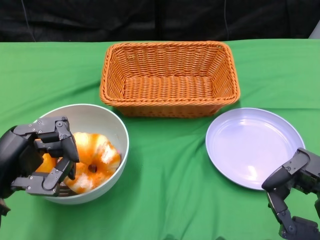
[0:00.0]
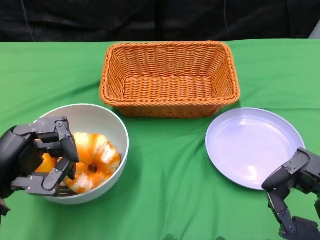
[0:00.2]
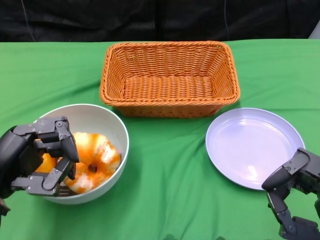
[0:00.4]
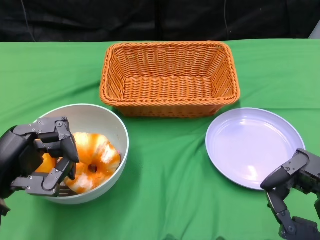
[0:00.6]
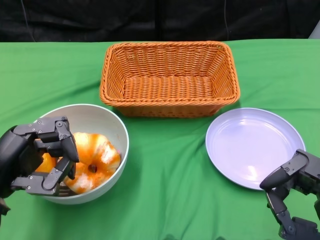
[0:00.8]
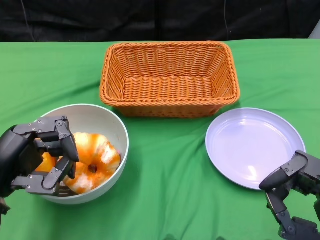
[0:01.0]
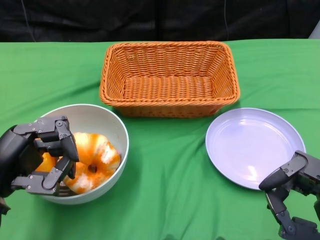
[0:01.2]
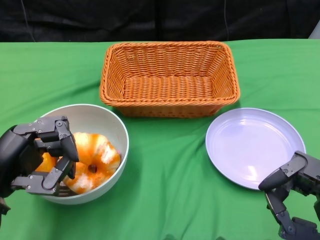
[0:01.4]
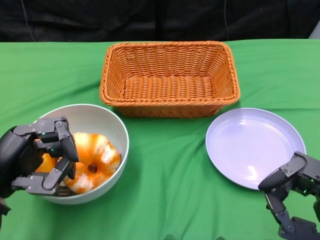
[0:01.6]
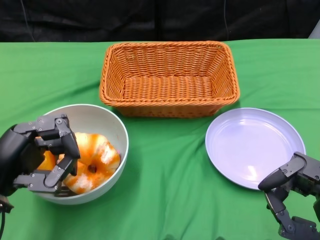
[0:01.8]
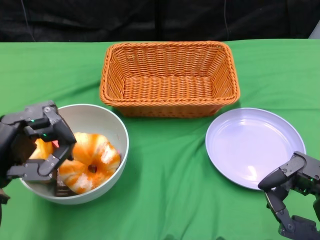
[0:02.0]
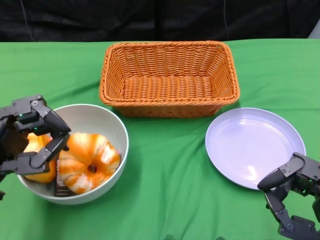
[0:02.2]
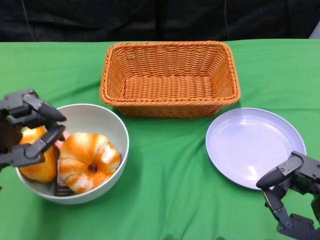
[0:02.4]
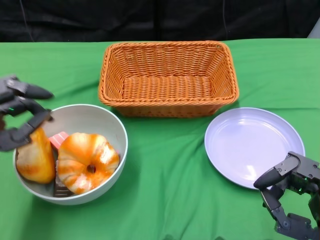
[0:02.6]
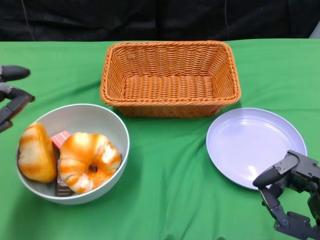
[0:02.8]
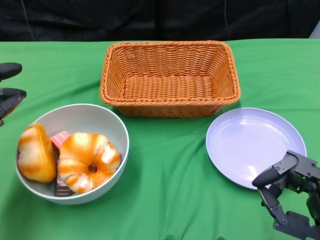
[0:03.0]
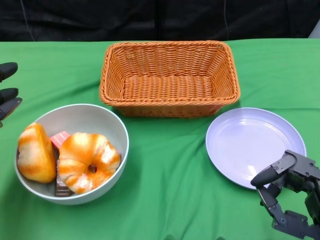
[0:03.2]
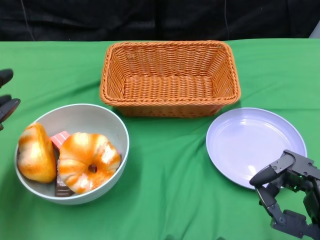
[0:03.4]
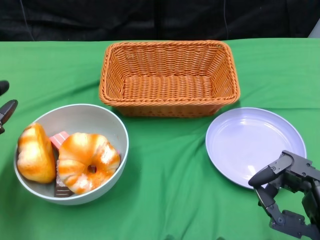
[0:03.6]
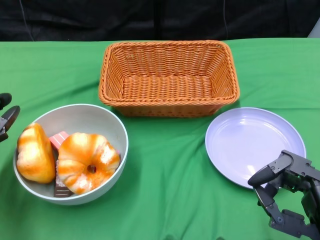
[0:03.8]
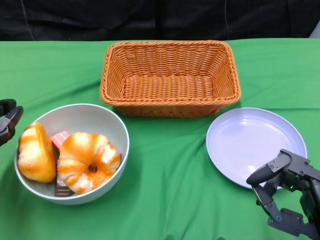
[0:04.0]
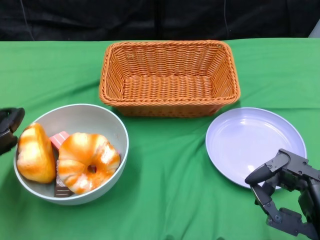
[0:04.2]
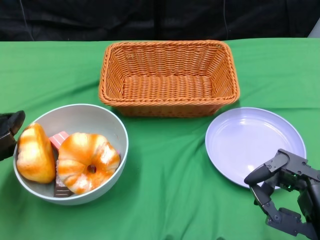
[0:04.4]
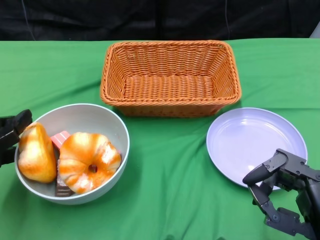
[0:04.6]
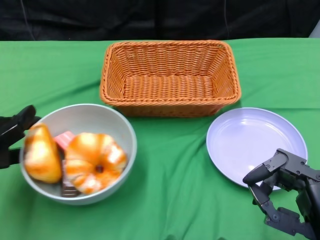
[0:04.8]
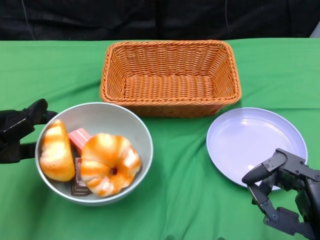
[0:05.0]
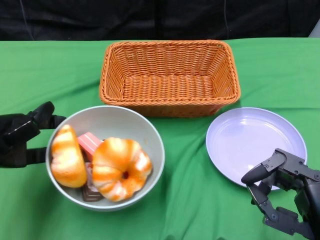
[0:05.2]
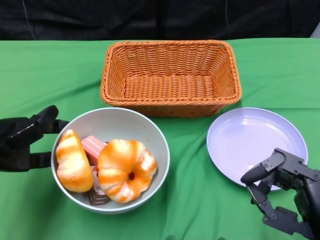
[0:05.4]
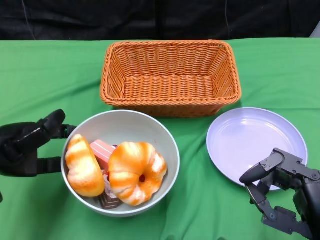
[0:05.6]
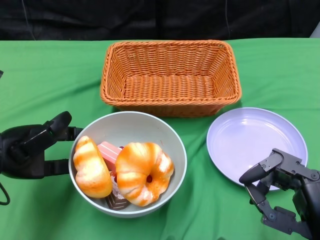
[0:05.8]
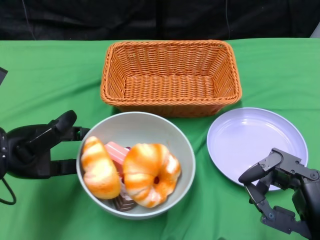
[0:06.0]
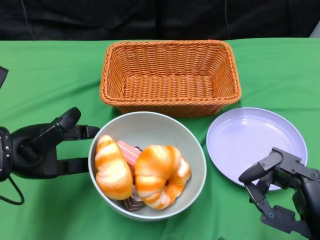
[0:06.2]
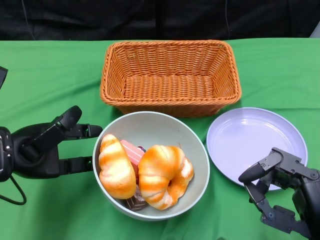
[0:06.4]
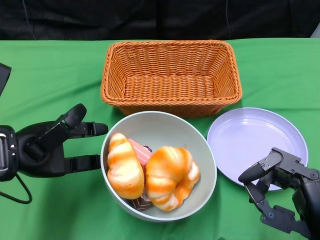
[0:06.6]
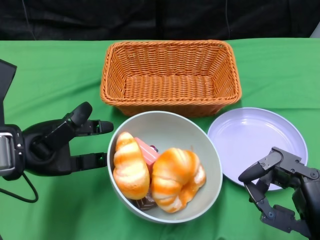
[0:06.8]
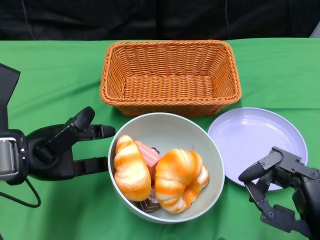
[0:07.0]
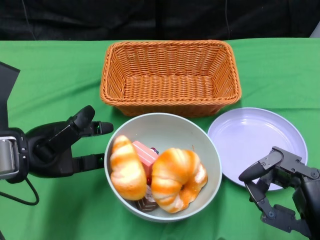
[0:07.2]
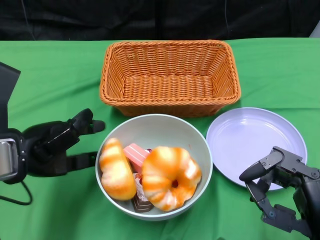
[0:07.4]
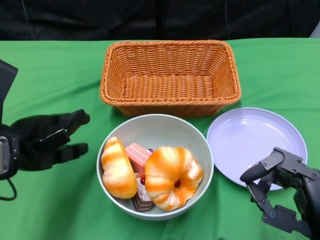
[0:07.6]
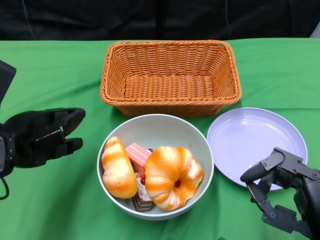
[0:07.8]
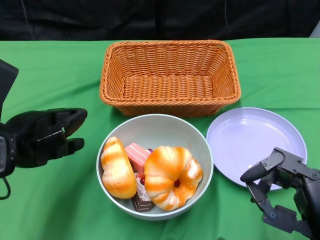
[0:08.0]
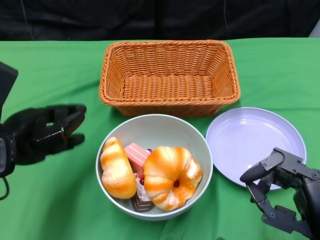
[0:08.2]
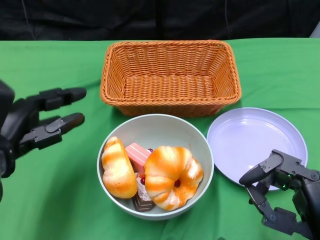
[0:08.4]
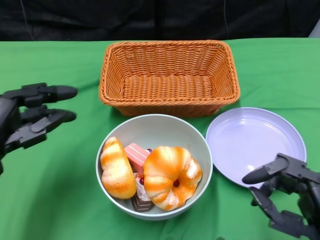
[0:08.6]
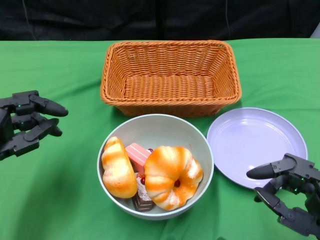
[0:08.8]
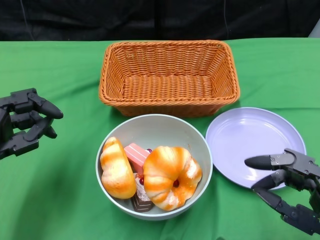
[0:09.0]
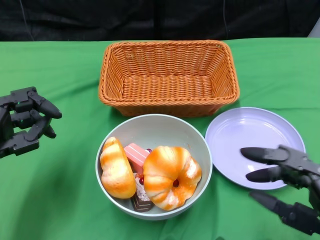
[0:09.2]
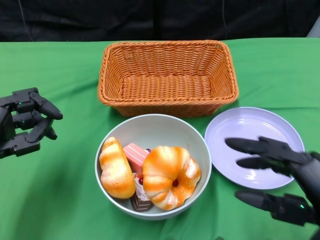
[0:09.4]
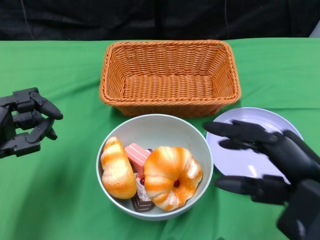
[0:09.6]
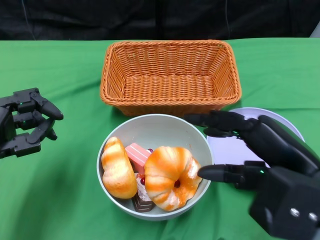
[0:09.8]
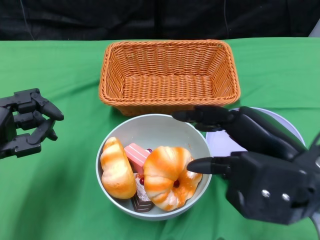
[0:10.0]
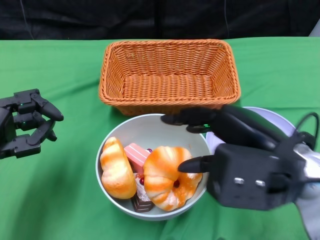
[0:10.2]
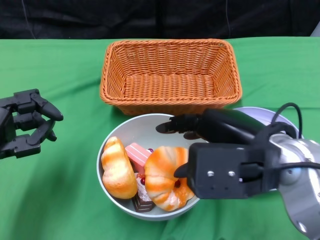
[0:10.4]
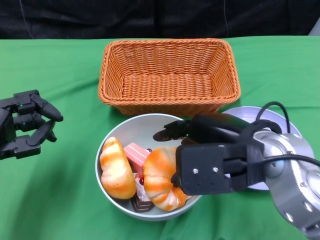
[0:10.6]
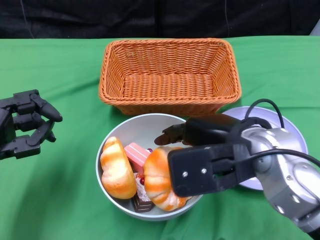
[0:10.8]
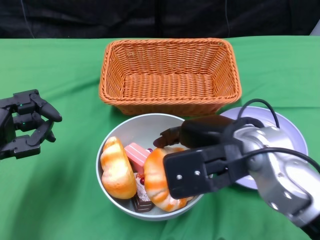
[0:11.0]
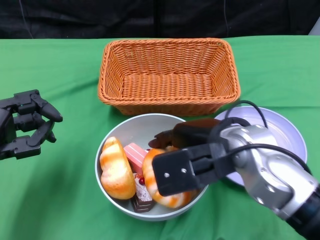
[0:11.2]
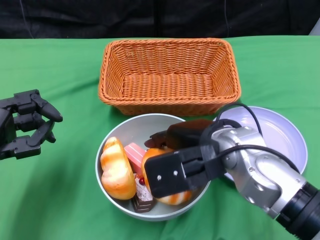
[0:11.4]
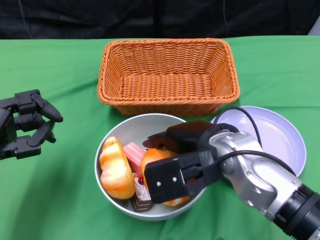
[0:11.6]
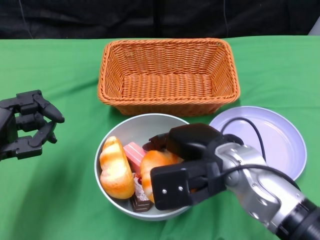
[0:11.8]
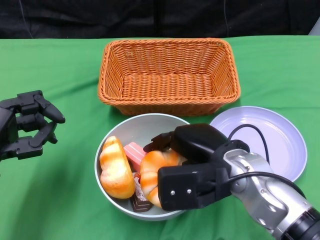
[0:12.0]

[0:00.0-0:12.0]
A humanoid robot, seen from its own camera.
Step, 0:00.0 to 0:07.8: Push the bowl to the center of the table using the left gripper.
0:01.6 to 0:03.0: The left hand ends up roughly 5 cm from where it was.
0:04.4 to 0:06.0: The left hand shifts about 5 cm to the right.
0:07.6 to 0:09.0: The left hand shifts about 5 cm downward.
0:09.0 to 0:10.4: The right hand is displaced to the left, upward and forward by roughly 15 cm.
0:10.4 to 0:12.0: The right hand travels downward by about 10 cm.

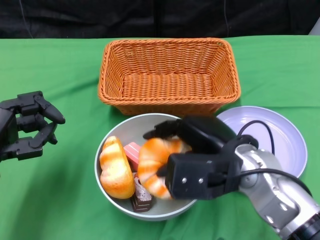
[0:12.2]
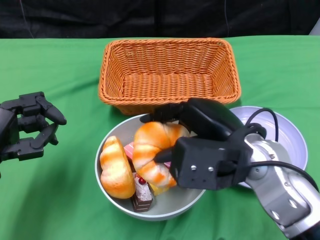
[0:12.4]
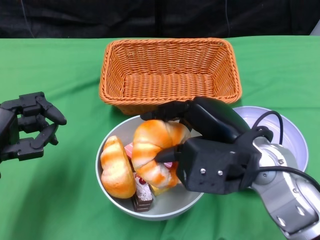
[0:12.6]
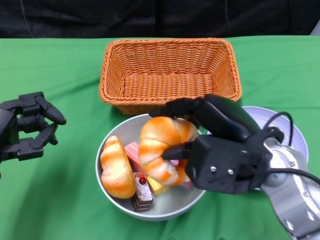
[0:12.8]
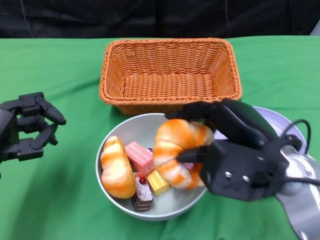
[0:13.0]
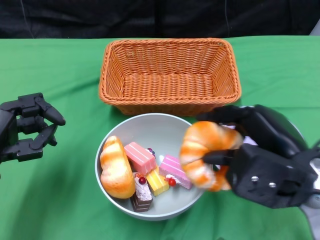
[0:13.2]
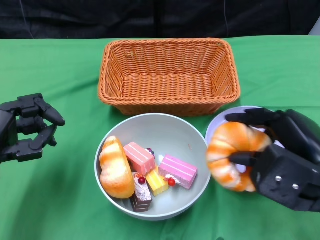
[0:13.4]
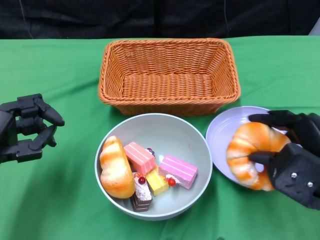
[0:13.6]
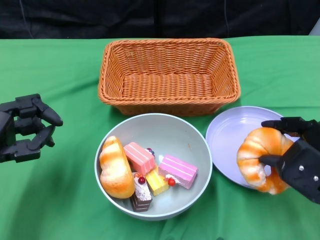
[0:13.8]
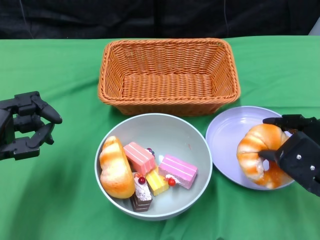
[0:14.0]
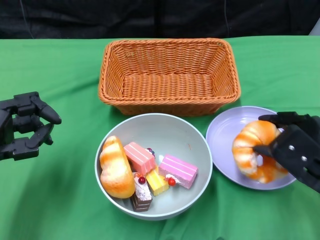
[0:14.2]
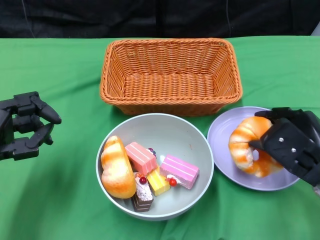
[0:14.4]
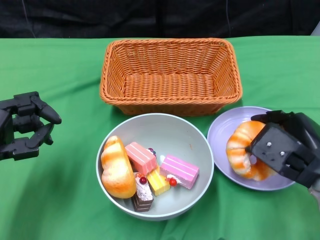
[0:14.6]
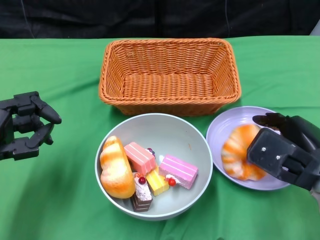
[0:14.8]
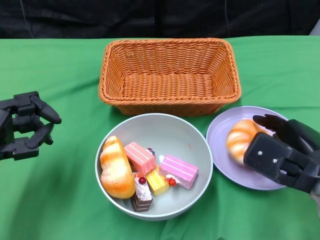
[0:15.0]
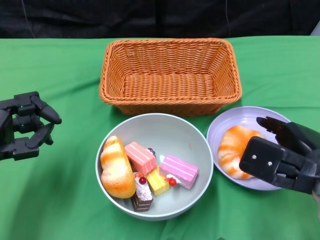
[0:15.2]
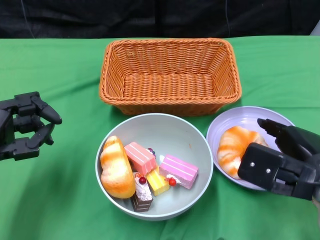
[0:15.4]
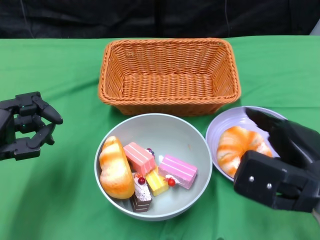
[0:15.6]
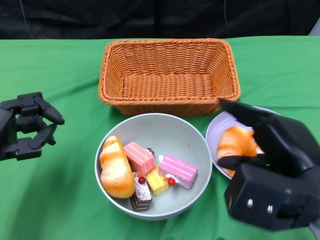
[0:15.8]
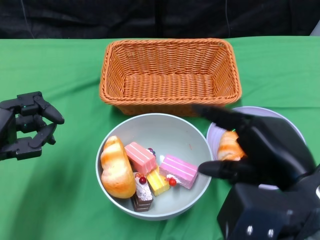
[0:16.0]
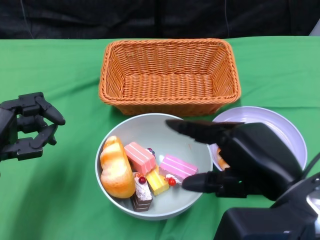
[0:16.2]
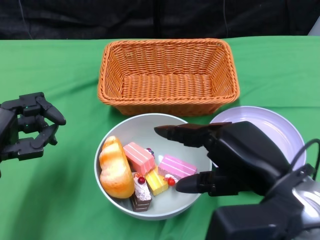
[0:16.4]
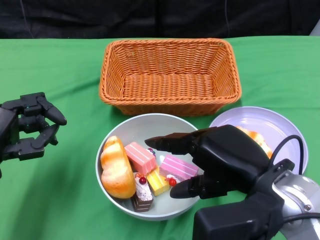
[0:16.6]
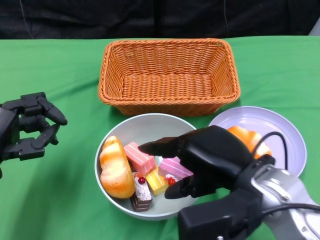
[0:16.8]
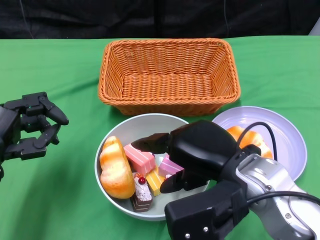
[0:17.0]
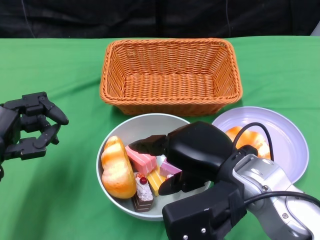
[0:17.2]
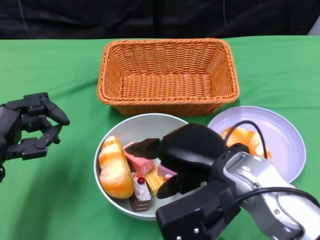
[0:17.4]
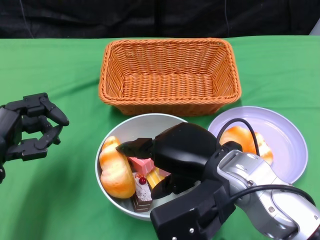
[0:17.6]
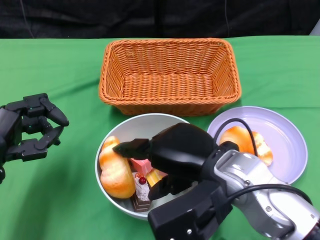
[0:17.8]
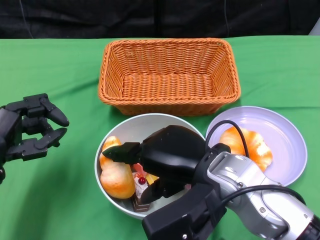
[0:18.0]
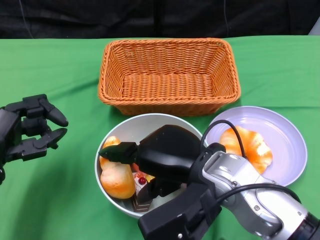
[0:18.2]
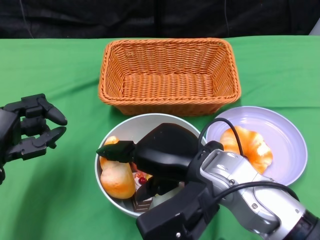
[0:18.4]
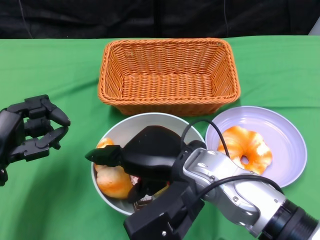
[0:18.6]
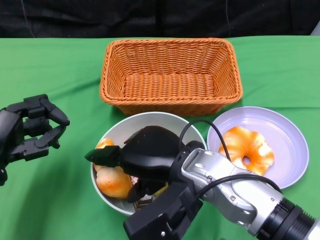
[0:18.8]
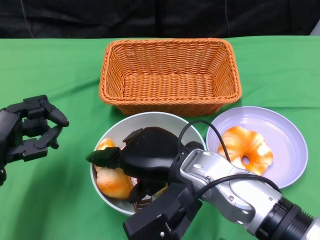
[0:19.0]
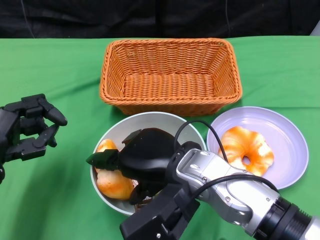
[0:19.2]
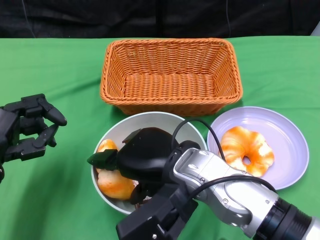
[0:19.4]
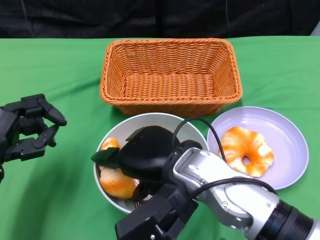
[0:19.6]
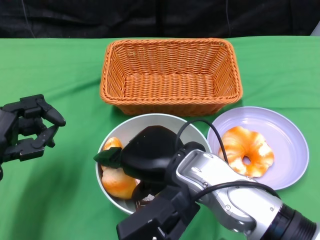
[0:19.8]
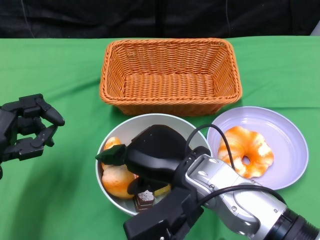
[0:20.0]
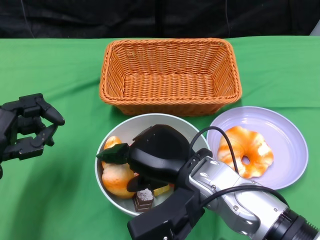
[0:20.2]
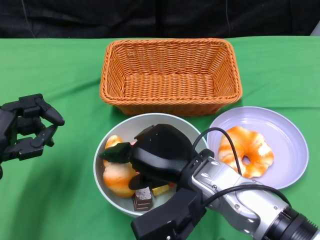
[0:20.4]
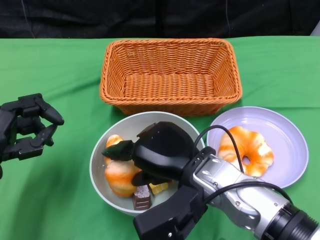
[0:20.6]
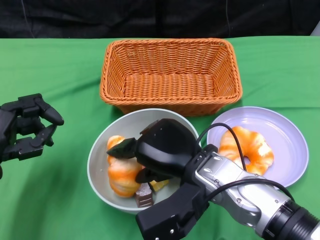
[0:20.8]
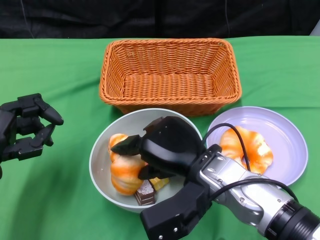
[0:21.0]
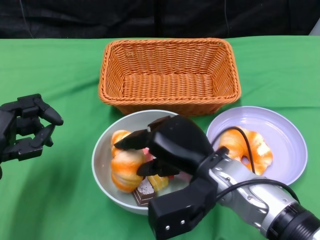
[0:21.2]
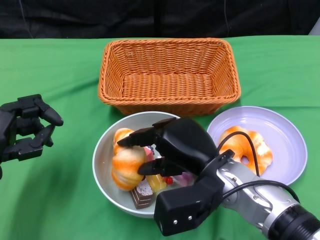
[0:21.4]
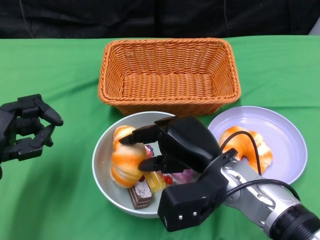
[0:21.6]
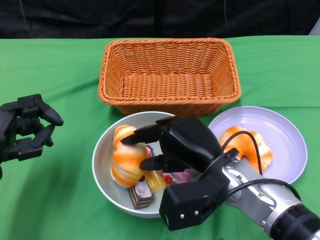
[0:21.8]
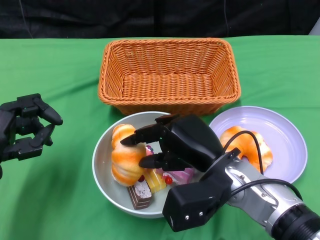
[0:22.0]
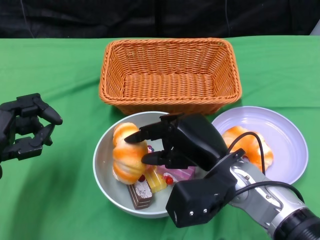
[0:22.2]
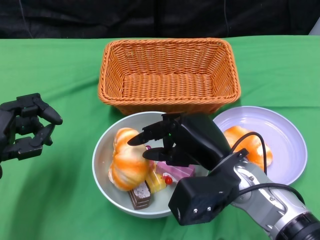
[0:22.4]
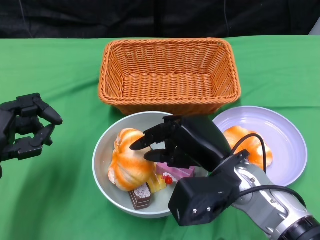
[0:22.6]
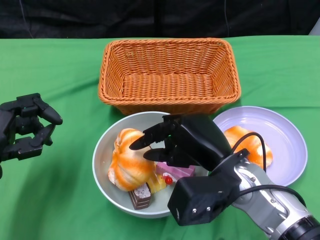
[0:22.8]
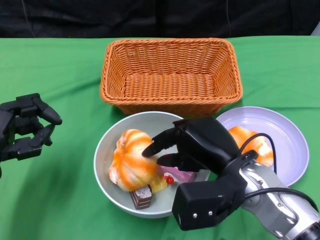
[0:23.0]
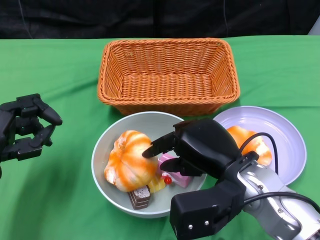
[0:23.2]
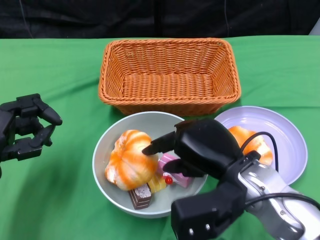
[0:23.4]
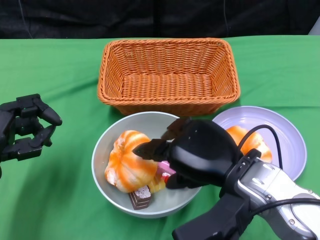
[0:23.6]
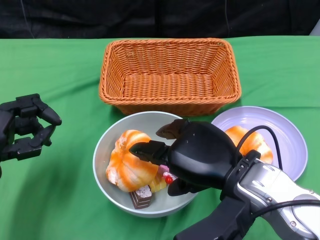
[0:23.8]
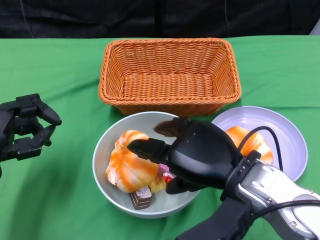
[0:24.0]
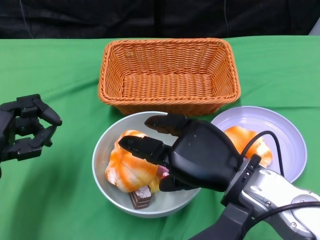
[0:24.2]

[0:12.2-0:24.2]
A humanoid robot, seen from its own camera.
Step, 0:12.2 to 0:15.2: Pick up the bread with the right gripper and place it on the plate.
0:12.2 to 0:13.8: The right hand moves to the right, approximately 15 cm.
0:15.2 to 0:16.6: The right hand is displaced to the left and upward by approximately 10 cm.
0:16.6 to 0:18.2: The right hand travels to the left by about 5 cm.
0:19.8 to 0:21.2: The right hand changes place by roughly 5 cm.
